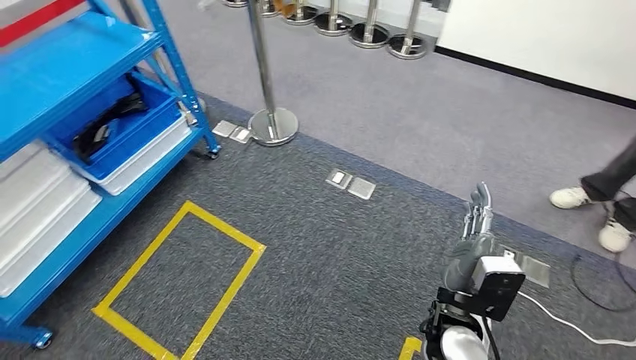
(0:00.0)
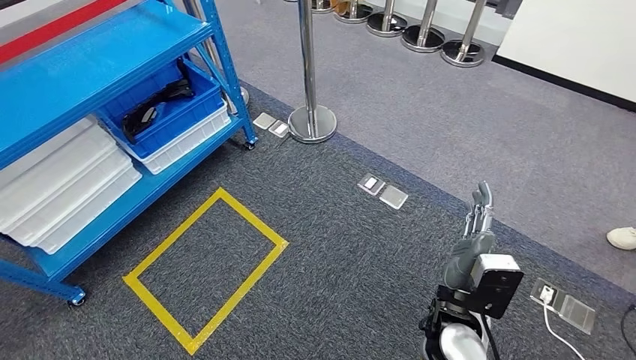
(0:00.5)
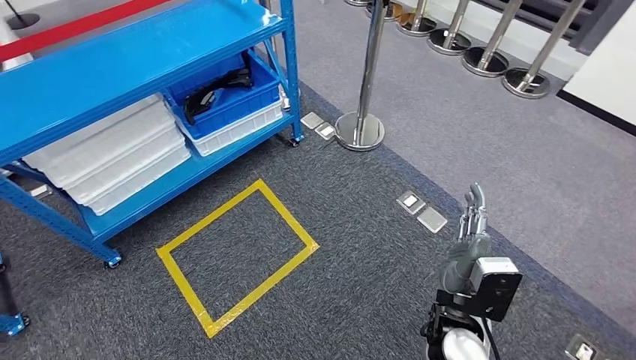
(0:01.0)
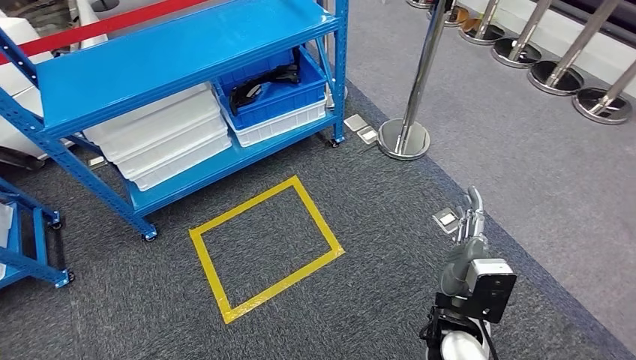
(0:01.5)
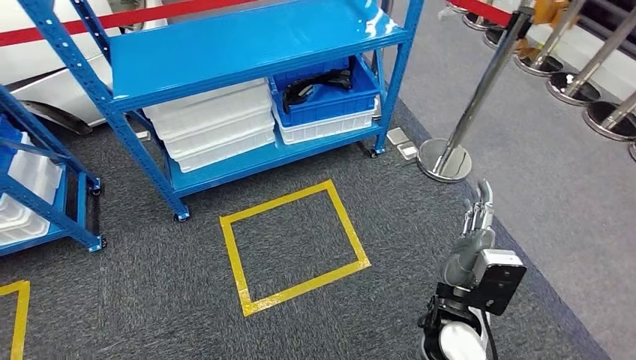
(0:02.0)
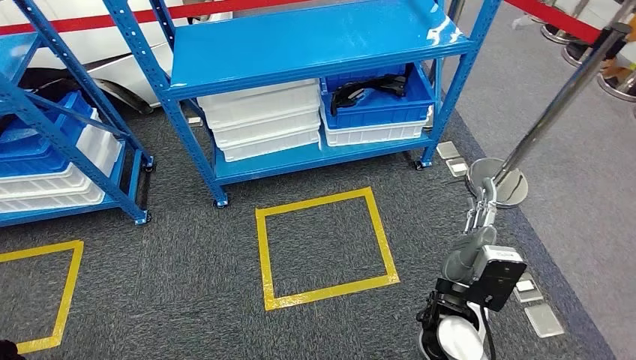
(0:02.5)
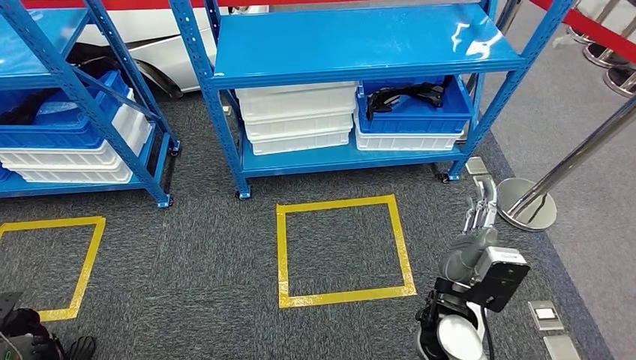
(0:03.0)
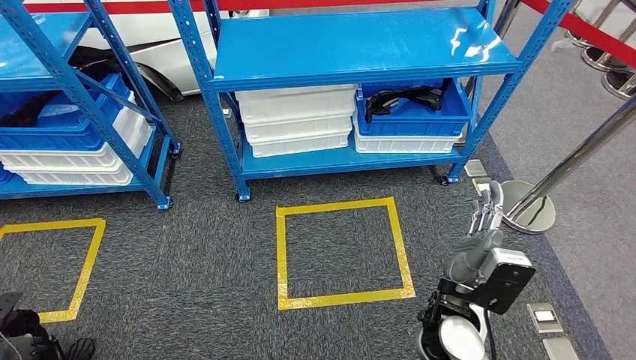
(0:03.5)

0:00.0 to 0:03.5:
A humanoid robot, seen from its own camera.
Step, 0:00.0 to 0:03.5: Move to the initial position of the shelf.
